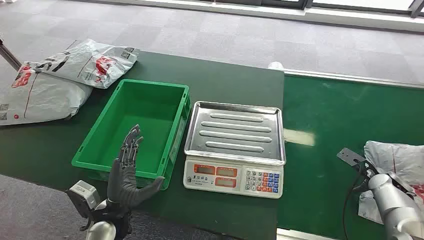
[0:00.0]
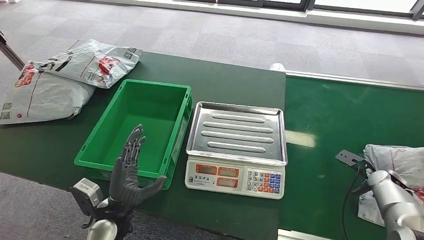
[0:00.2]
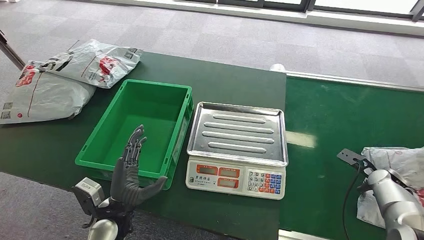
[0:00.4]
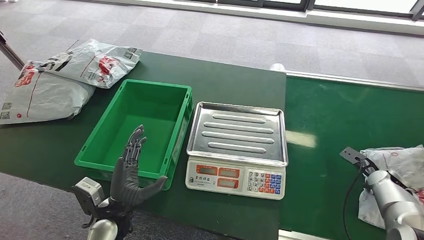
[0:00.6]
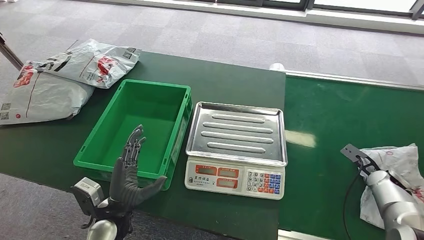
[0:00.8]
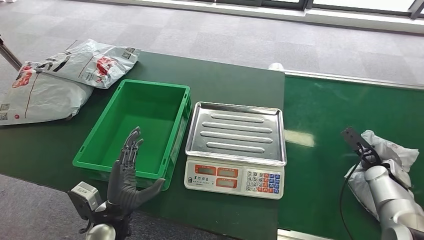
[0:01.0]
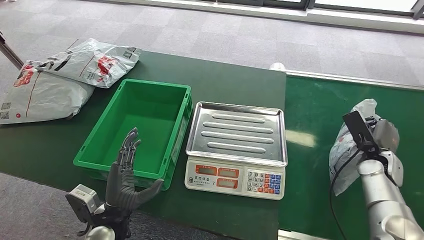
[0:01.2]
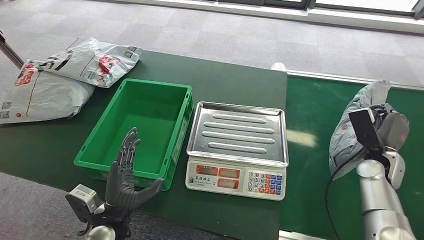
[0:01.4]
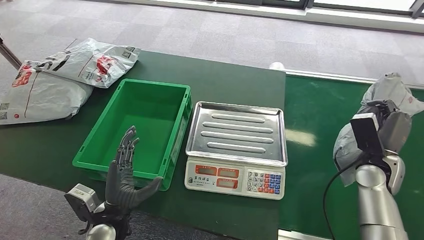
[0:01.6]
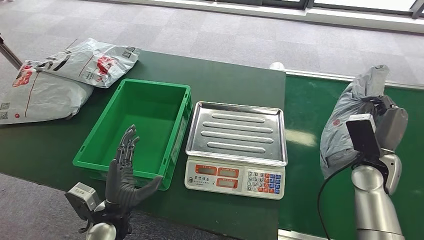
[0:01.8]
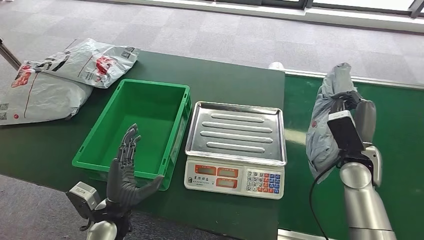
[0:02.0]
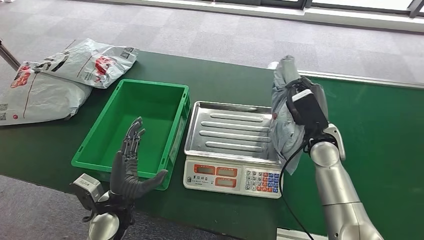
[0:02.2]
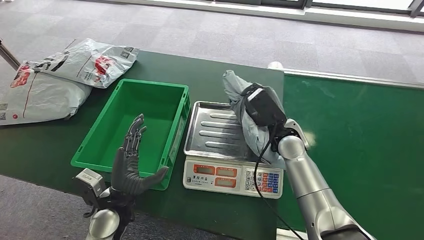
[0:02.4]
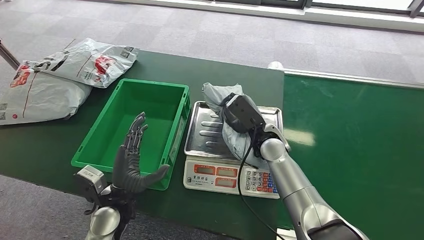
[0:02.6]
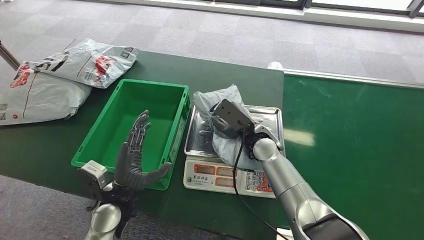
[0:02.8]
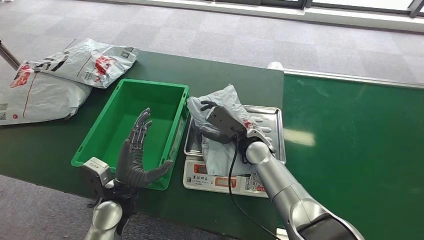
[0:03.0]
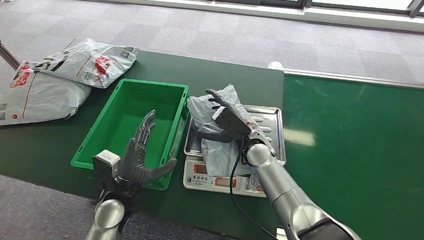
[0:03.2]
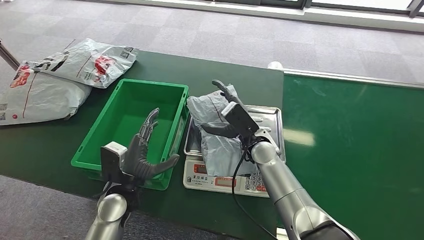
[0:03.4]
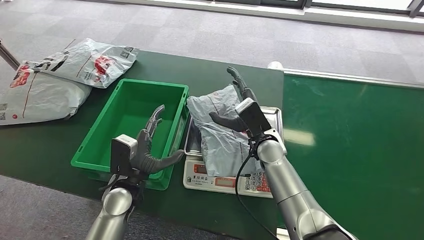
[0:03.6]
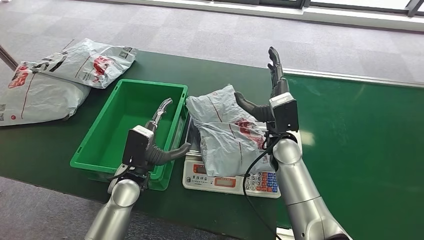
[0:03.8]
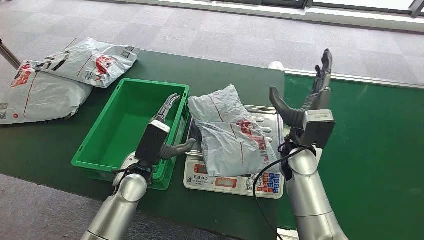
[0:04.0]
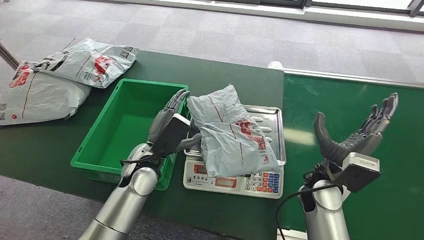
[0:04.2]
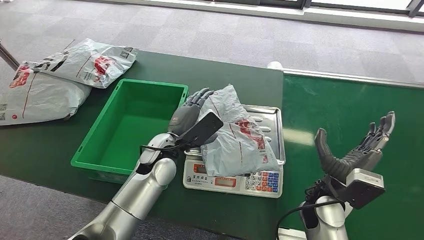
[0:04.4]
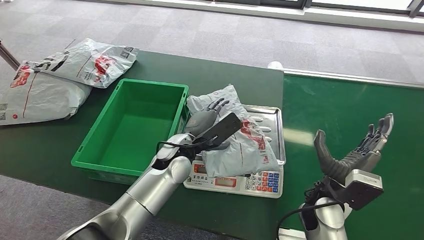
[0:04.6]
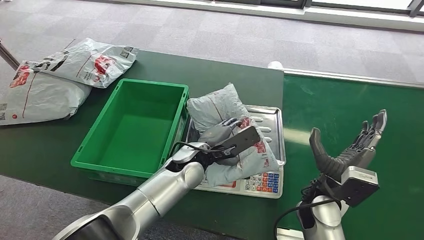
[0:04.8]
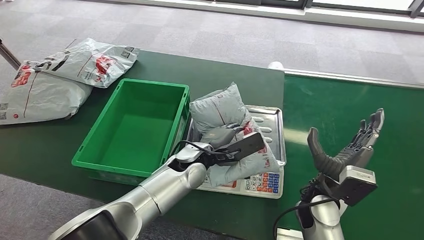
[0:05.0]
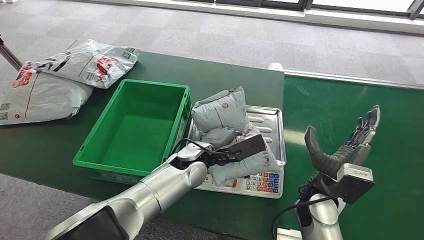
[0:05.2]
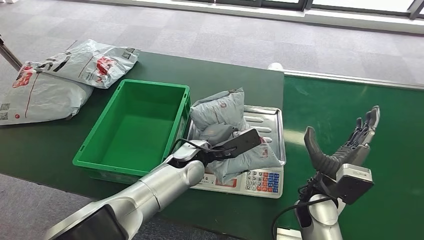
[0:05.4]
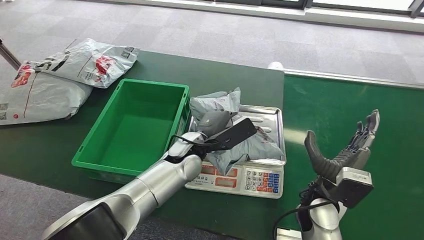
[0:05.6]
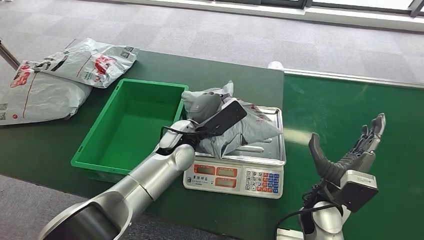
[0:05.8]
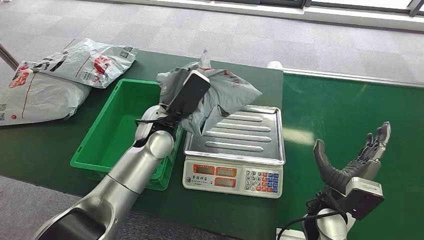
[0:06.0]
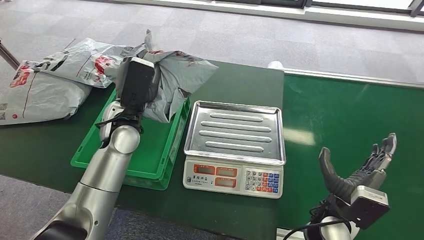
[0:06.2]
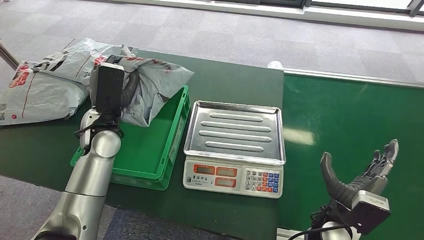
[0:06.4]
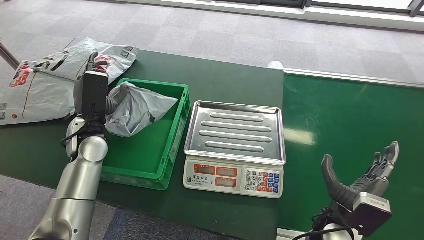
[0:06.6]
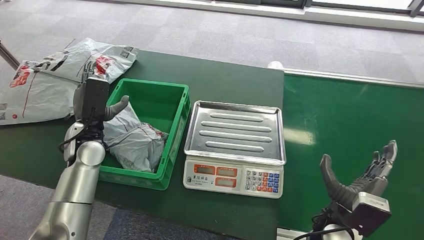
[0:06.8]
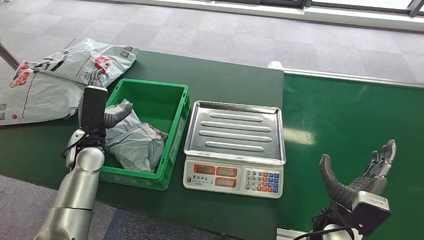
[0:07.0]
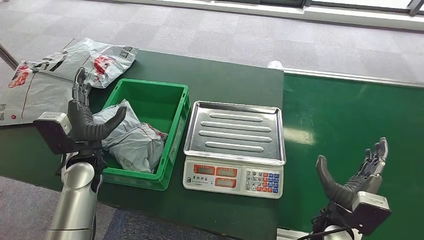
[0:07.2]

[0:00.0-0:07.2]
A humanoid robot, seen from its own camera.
Step, 0:00.0 to 0:02.0: Pick up the package from the conveyor belt.
Step, 0:02.2 to 0:03.6: Place the package onto the inbound machine.
Step, 0:03.8 to 0:06.2: Pick up the package from the inbound machine.
Step, 0:06.4 to 0:07.2: Place the package into the parcel locker.
0:02.8 to 0:04.4: The right hand shifts about 20 cm backward and to the right, while the left hand shifts about 15 cm to the right, forward and upward.
0:04.4 to 0:05.8: The left hand ends up some 5 cm from where it was.

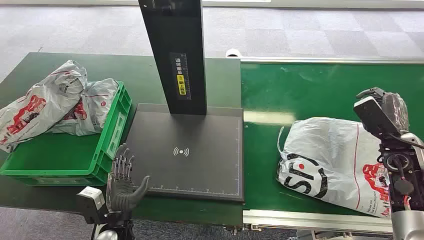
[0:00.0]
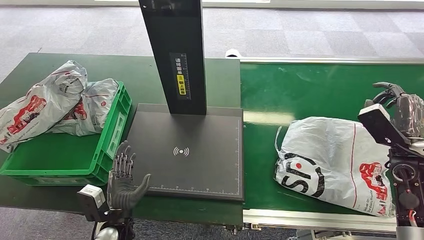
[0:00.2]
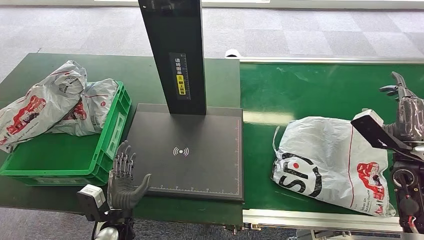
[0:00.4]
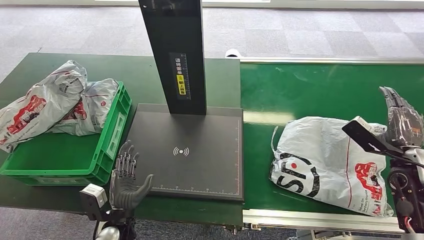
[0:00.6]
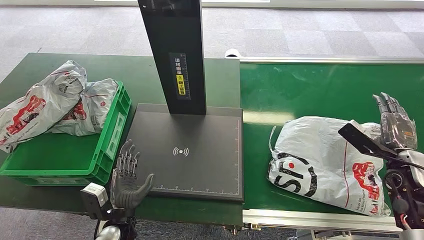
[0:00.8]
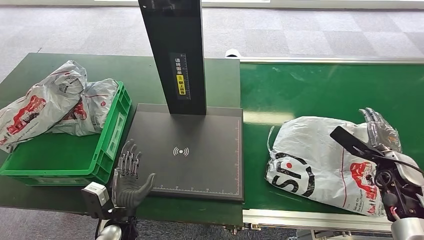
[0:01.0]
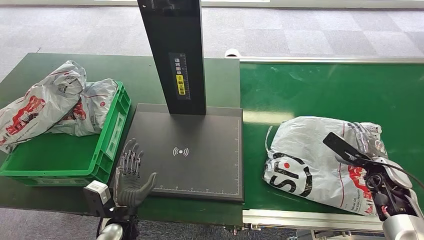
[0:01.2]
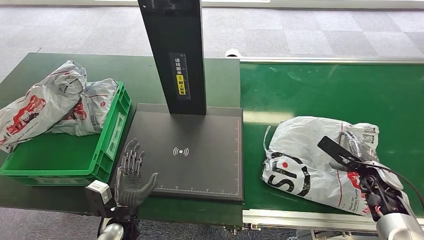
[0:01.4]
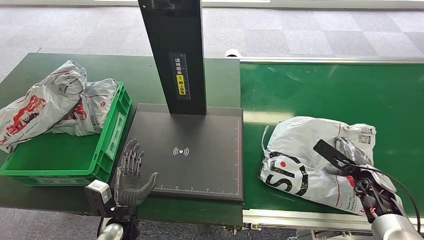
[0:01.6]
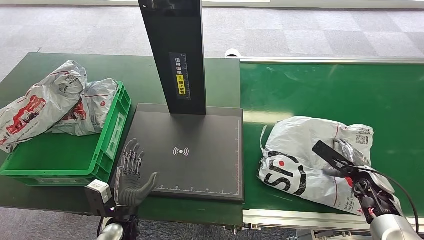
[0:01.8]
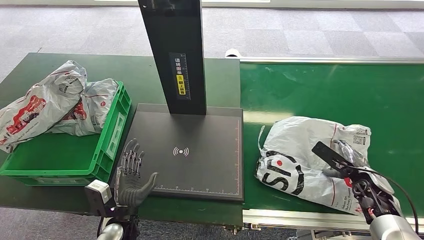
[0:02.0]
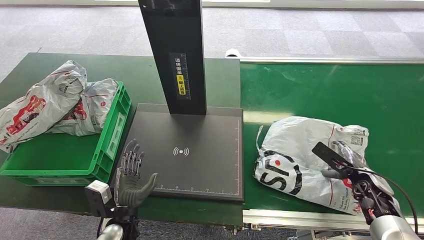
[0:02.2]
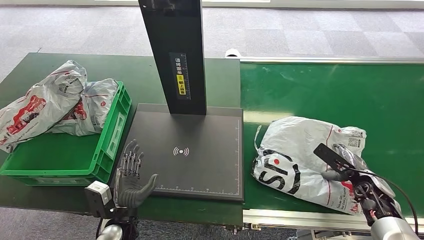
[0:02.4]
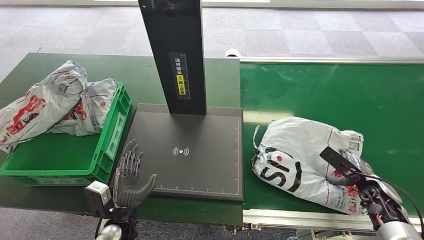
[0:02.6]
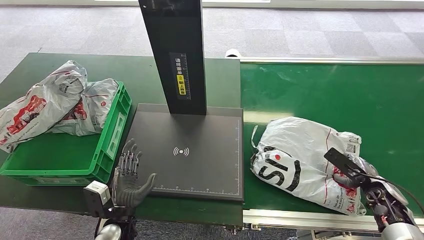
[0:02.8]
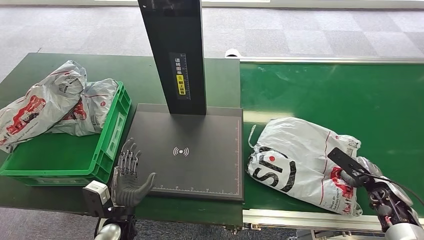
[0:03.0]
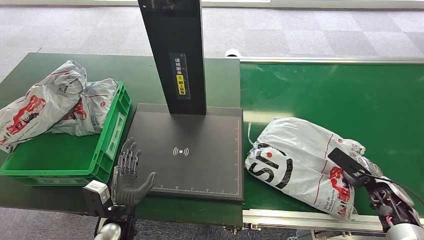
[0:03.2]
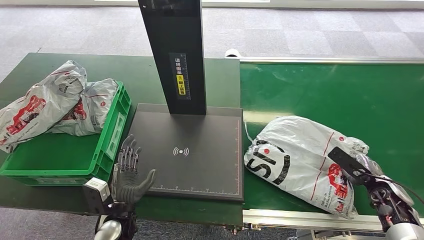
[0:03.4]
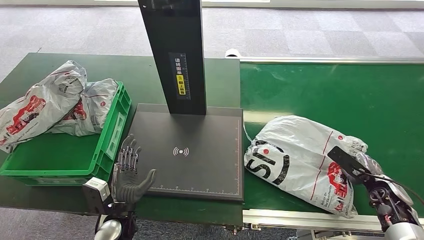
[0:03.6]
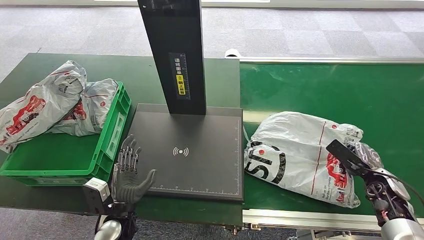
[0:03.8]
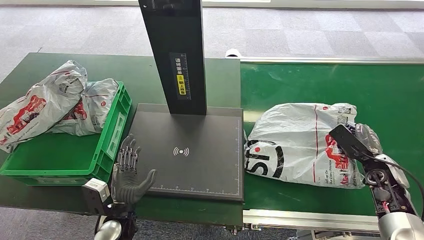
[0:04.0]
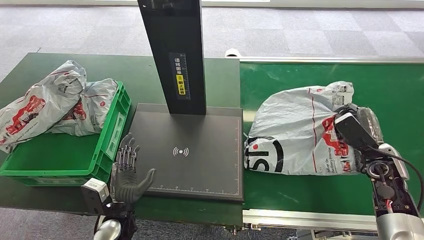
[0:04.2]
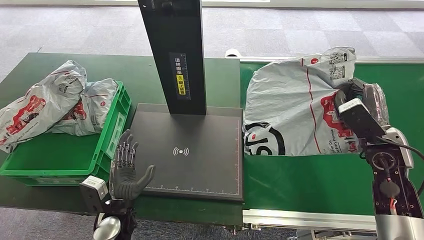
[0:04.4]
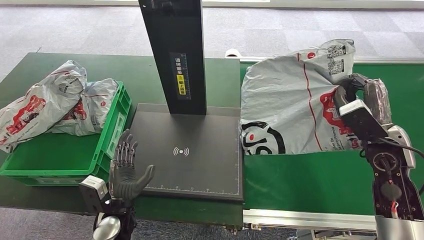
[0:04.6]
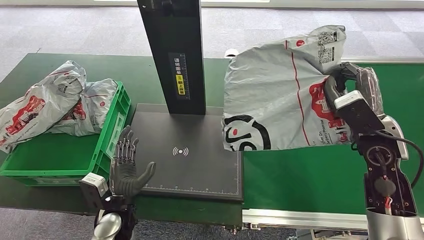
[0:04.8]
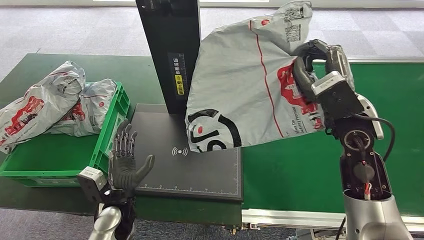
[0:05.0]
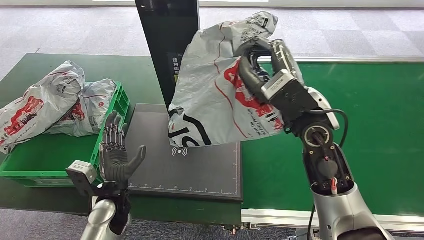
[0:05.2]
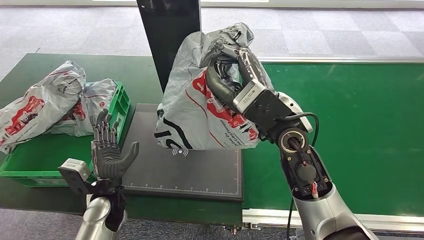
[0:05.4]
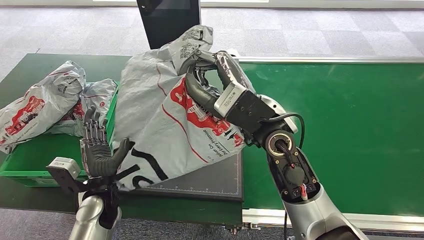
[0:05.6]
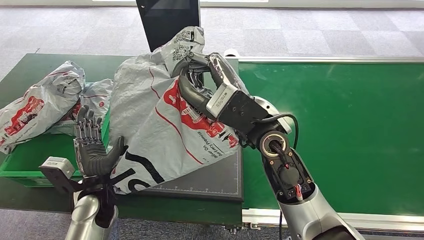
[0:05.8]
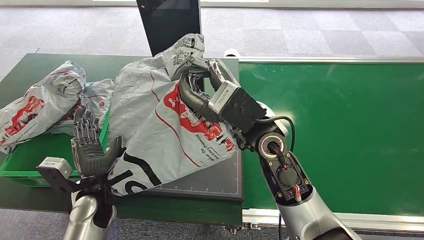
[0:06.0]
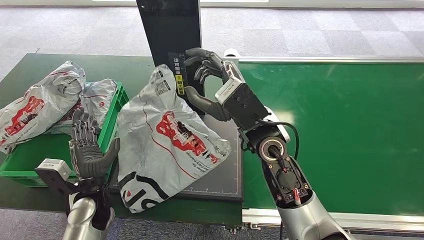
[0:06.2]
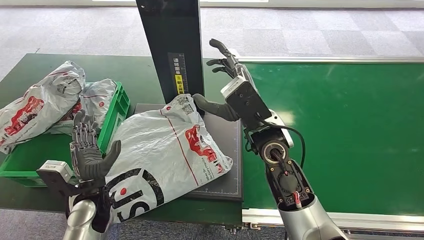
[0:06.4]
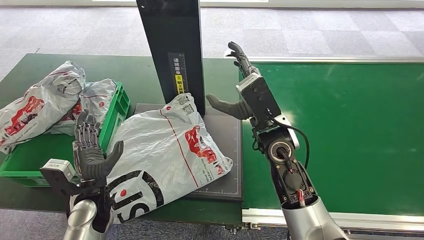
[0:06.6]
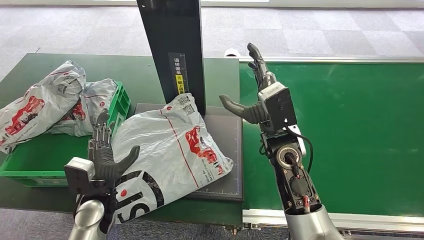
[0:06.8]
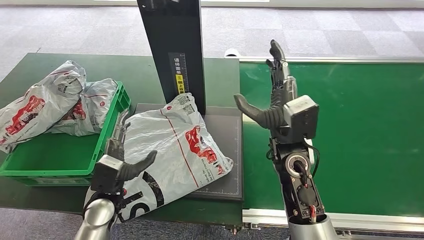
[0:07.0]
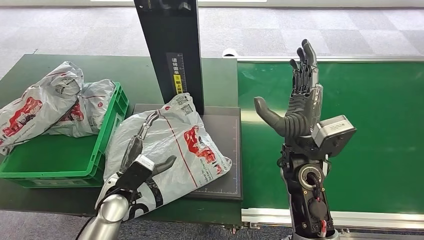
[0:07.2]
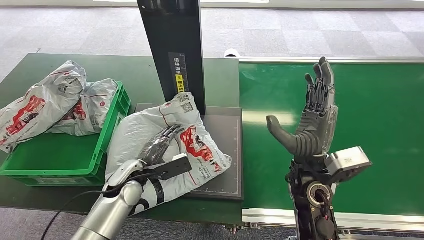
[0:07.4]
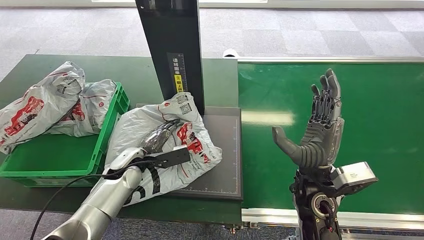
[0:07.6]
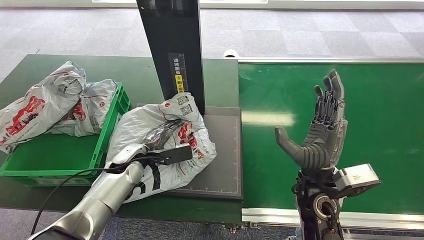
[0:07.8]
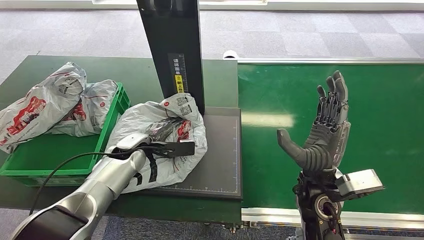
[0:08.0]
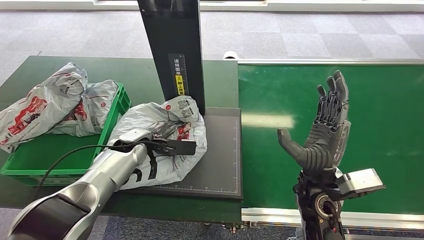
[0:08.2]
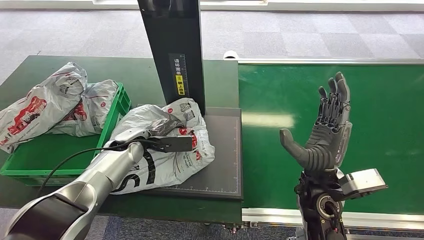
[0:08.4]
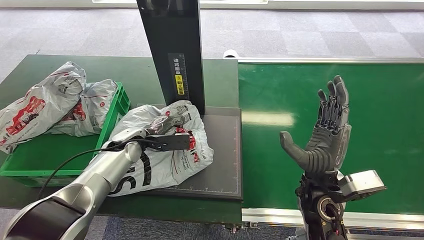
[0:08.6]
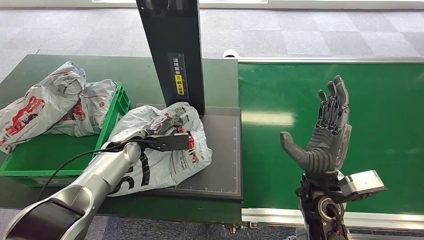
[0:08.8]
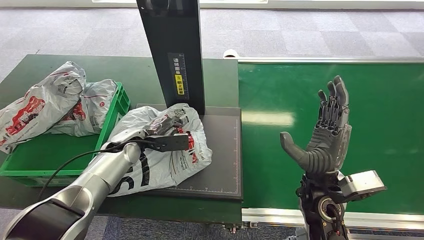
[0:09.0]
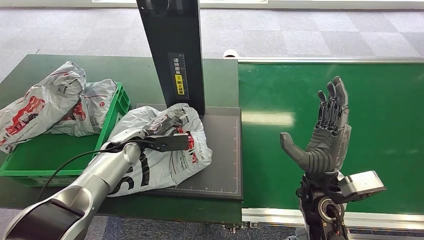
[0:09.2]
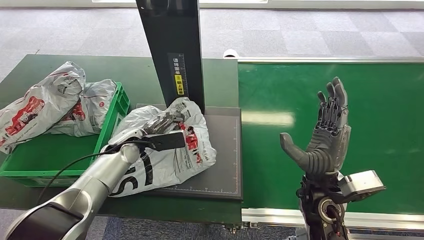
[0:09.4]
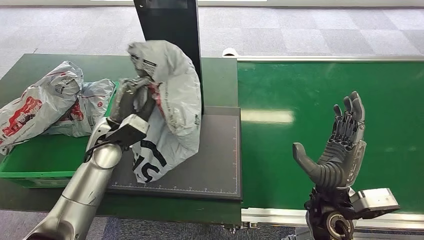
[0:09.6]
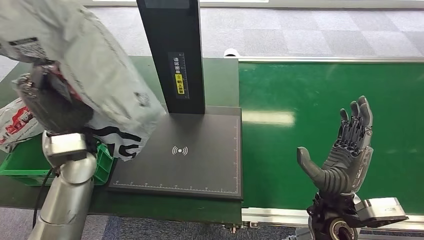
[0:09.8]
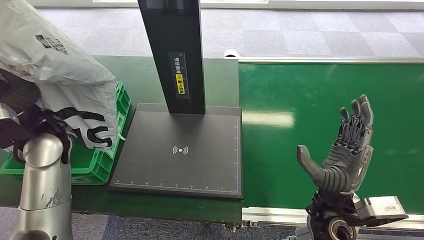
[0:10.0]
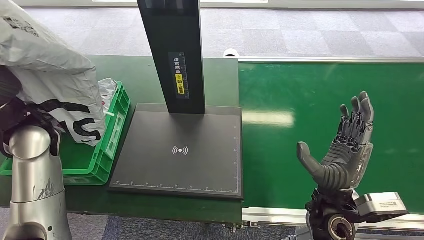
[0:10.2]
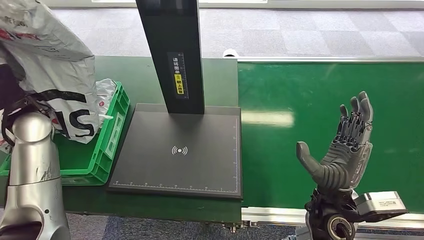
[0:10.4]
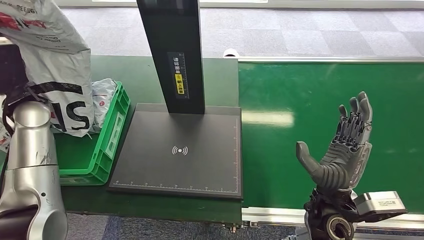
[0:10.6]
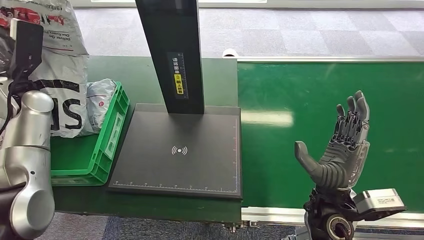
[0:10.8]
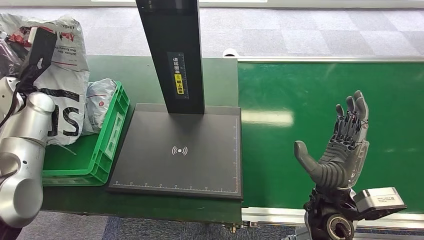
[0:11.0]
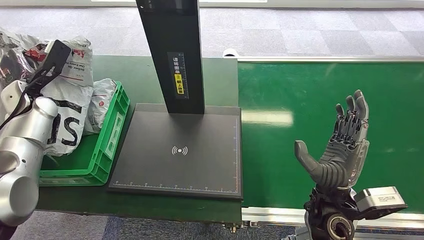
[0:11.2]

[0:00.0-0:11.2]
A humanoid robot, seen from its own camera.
Step, 0:00.0 to 0:05.2: Pick up the package from the conveyor belt.
Step, 0:05.4 to 0:07.0: Place the package onto the inbound machine.
Step, 0:07.2 to 0:10.4: Pick up the package from the inbound machine.
0:01.6 to 0:03.2: There are only small adjustments of the hands.
